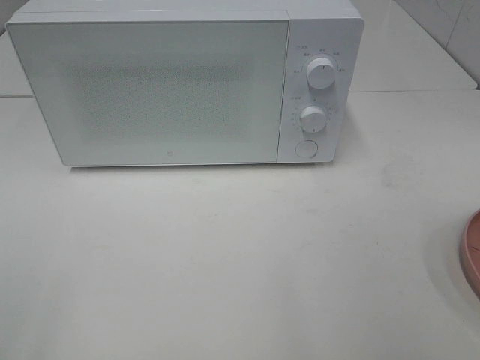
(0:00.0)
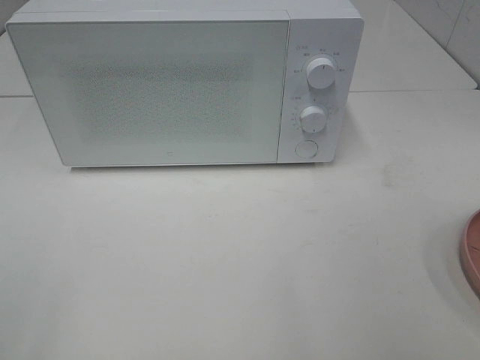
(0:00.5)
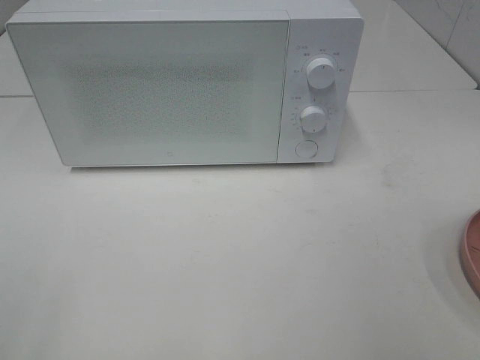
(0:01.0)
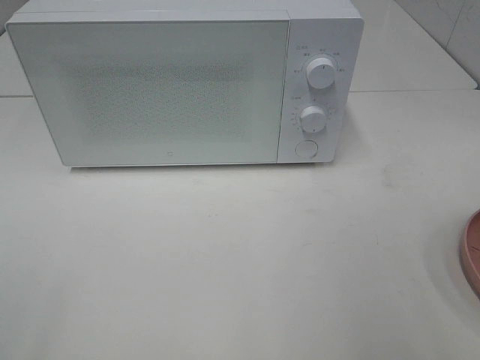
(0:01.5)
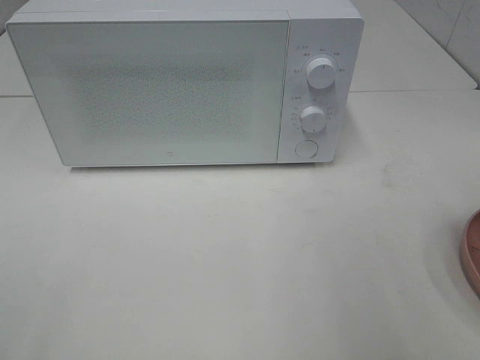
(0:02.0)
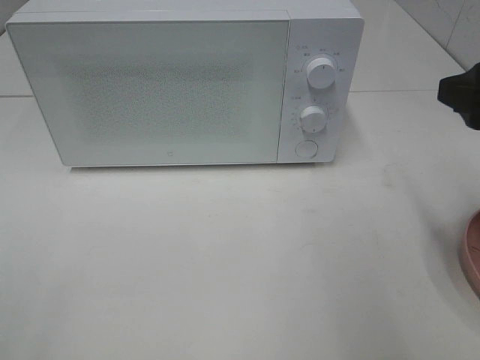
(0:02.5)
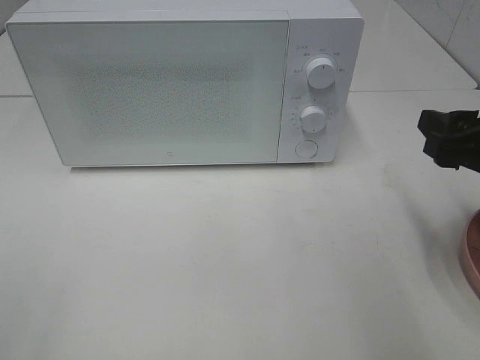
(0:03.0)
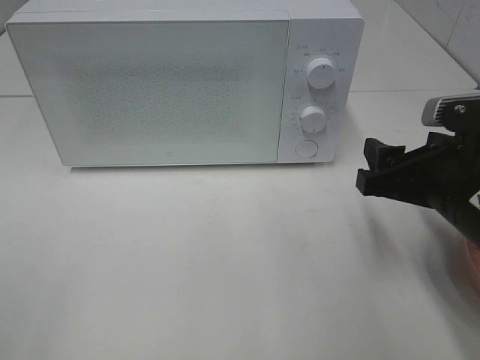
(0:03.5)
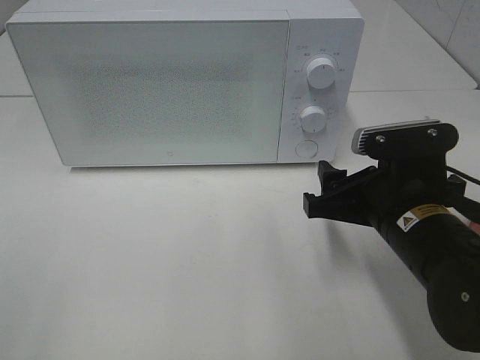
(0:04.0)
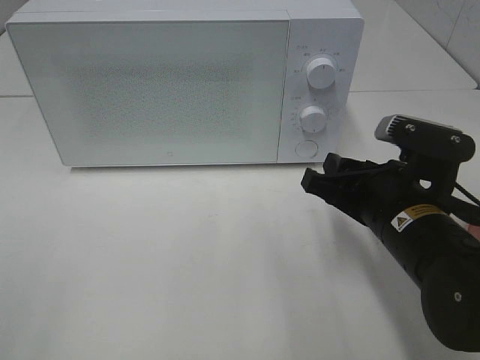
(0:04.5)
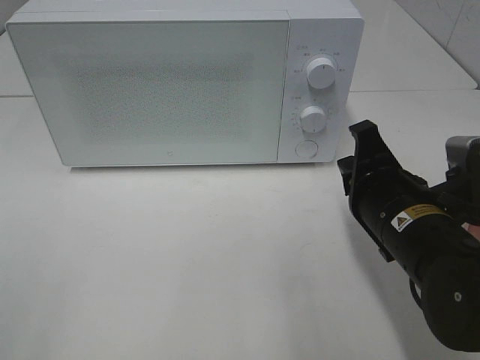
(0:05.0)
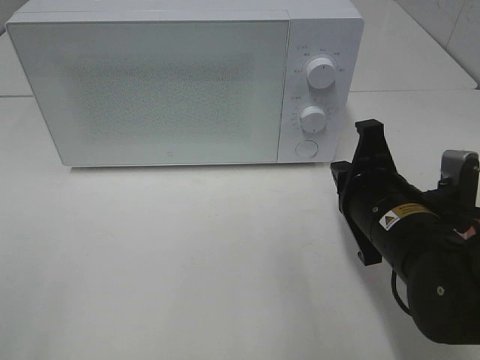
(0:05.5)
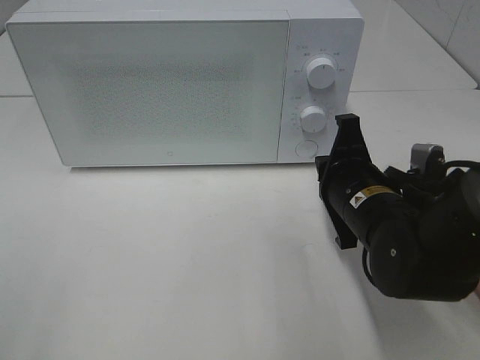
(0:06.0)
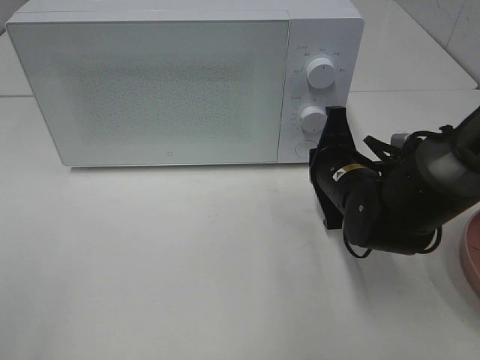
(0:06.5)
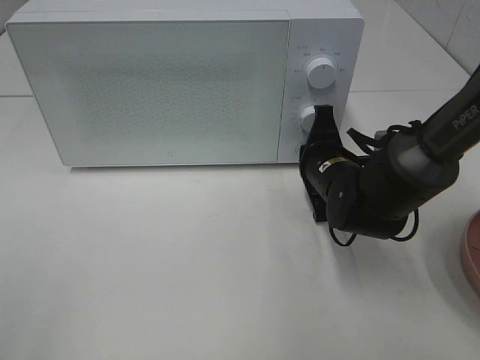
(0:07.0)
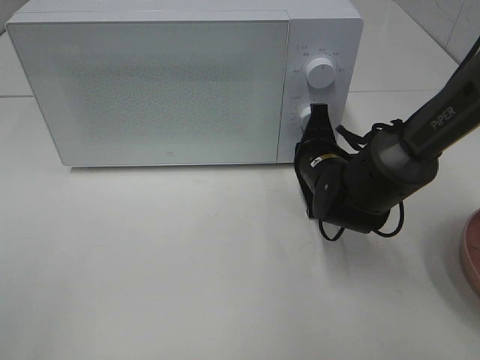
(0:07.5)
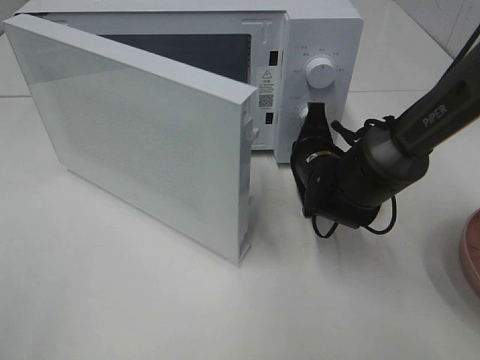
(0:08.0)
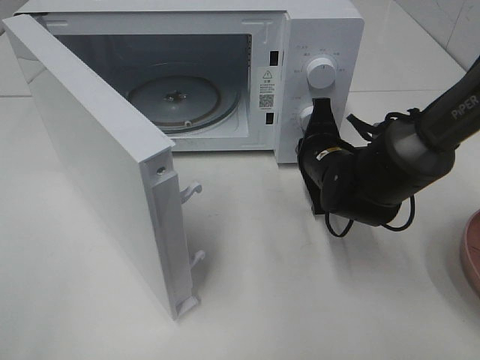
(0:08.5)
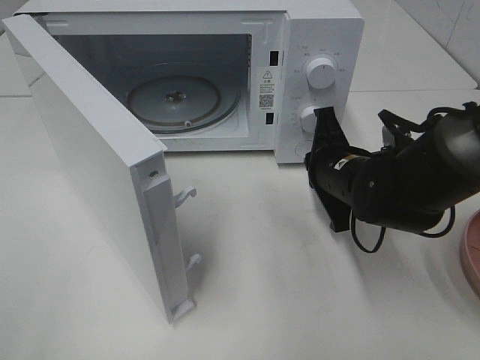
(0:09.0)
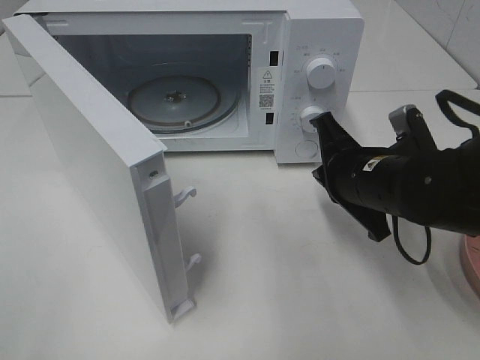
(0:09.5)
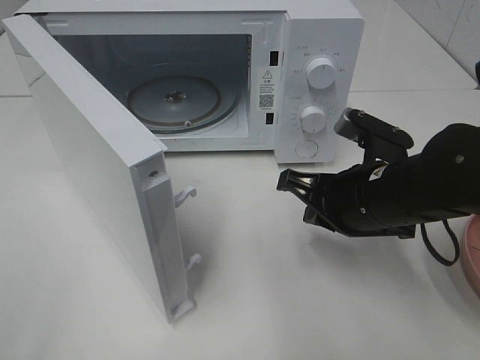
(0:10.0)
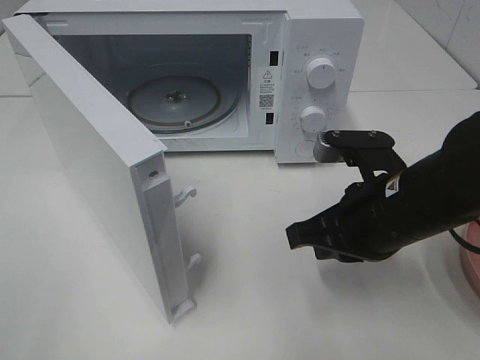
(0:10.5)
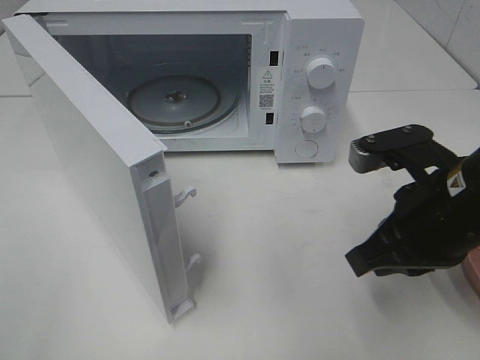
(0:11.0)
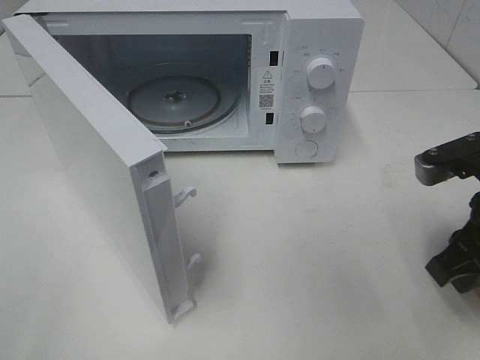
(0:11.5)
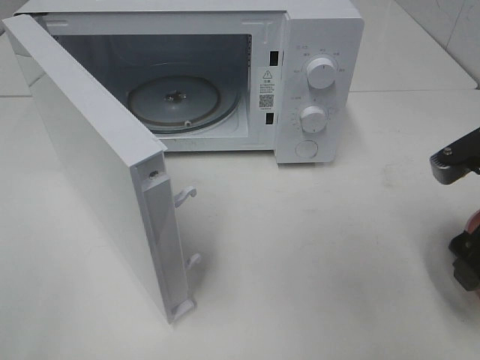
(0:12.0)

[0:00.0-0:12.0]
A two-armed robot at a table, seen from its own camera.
Task of the whole recording: Heat the burger.
Step, 0:00.0 to 0:09.5: Right hand: press the switch.
0:02.0 to 0:04.0: The right gripper moves downward, to the left and forward, approximately 20 cm.
0:04.0 to 0:06.0: The right gripper ends up some 5 cm from where it was, and closes.
0:06.0 to 0:08.0: The right gripper is displaced forward by approximately 10 cm.
0:08.0 to 0:10.0: The right gripper goes about 15 cm backward and upward.
0:10.0 to 0:12.0: The right gripper heads to the right, covering about 10 cm, and opens its fingers.

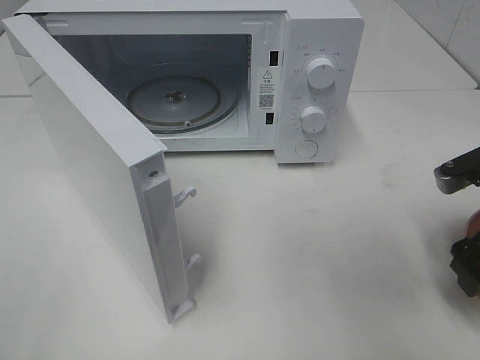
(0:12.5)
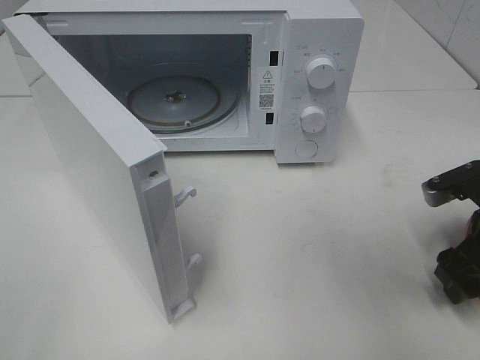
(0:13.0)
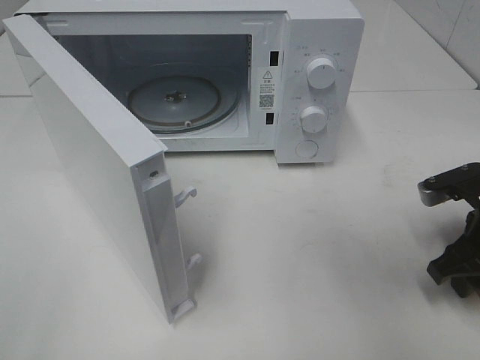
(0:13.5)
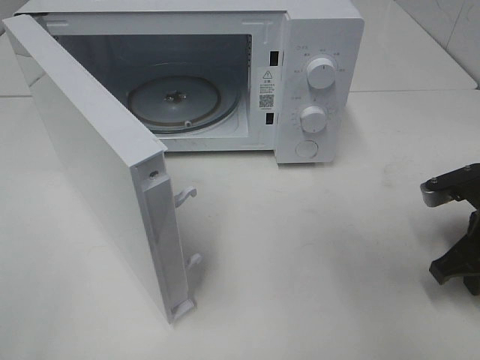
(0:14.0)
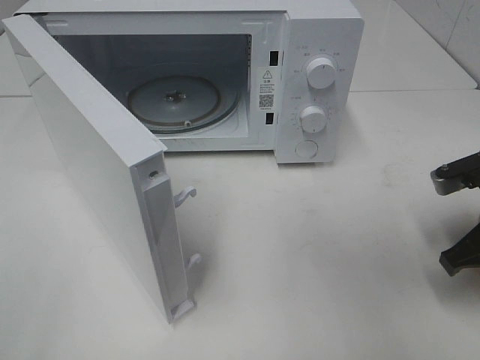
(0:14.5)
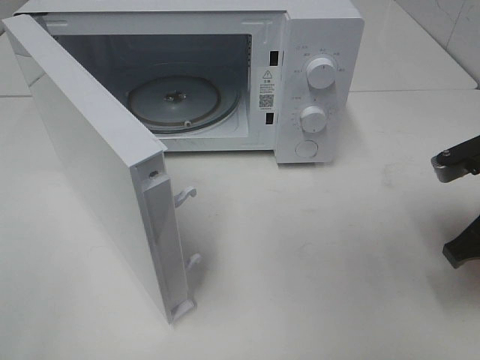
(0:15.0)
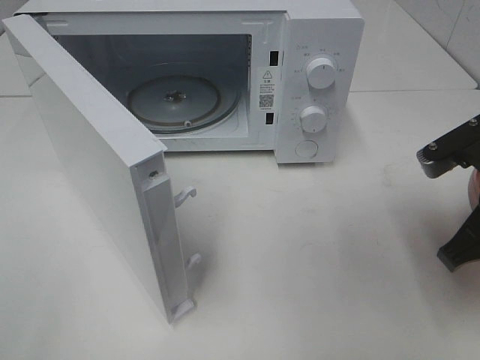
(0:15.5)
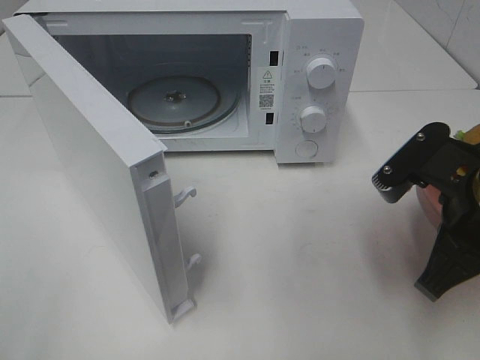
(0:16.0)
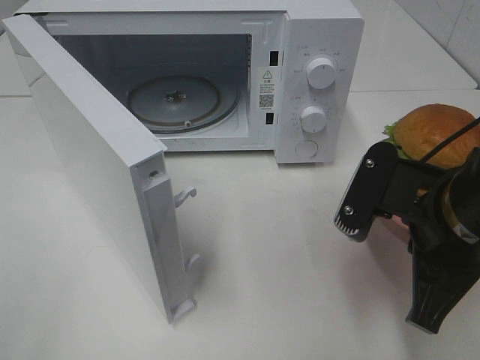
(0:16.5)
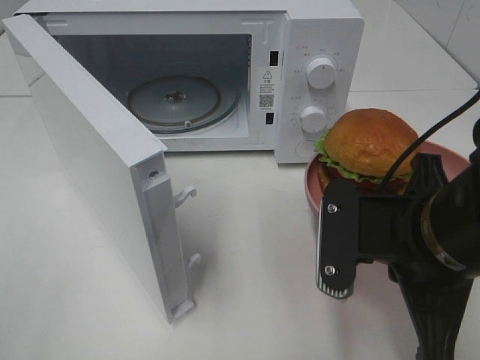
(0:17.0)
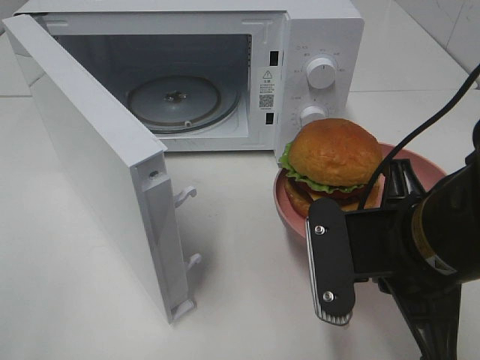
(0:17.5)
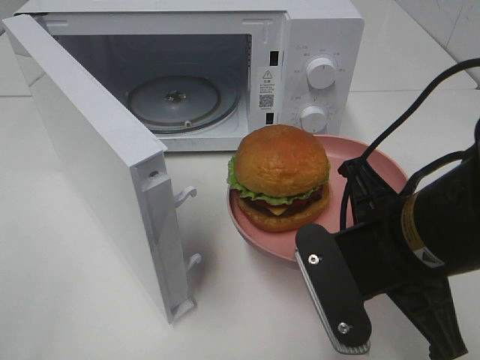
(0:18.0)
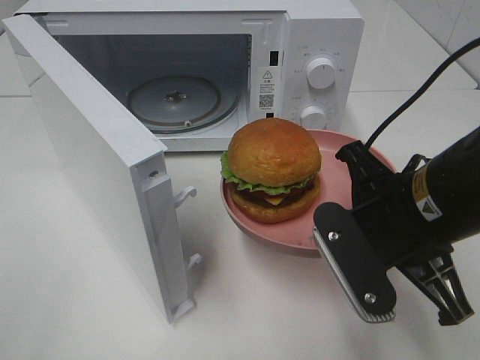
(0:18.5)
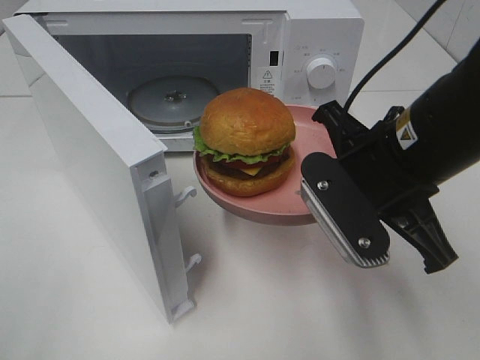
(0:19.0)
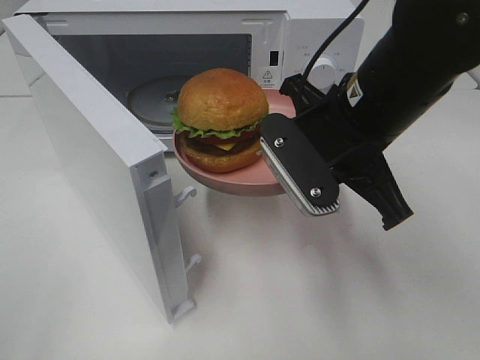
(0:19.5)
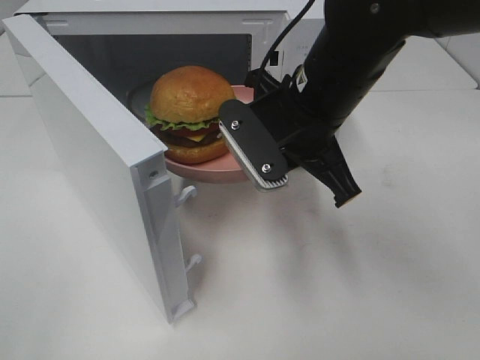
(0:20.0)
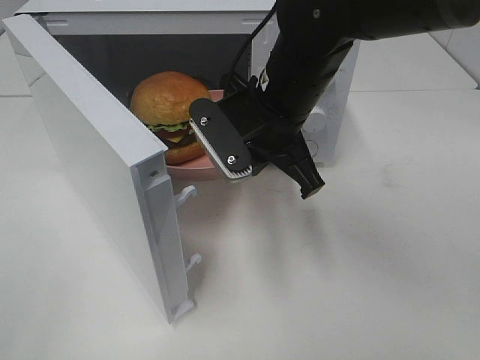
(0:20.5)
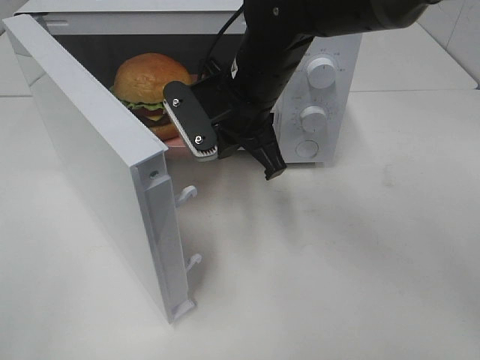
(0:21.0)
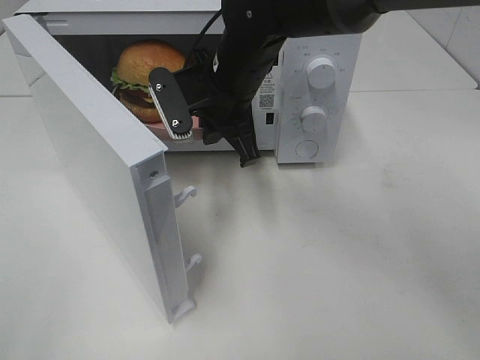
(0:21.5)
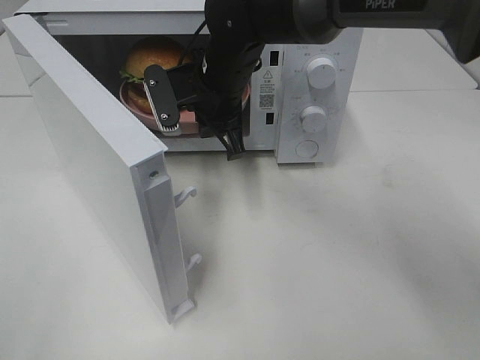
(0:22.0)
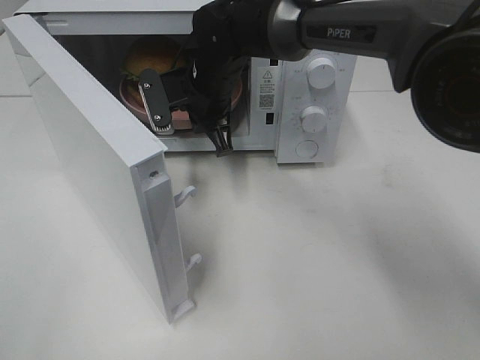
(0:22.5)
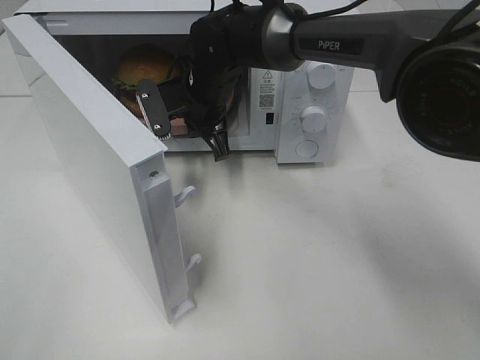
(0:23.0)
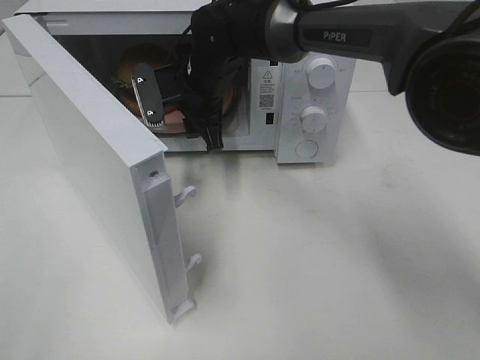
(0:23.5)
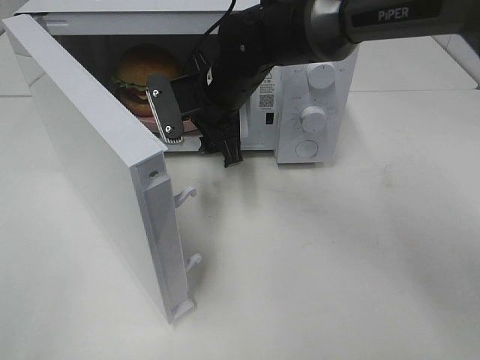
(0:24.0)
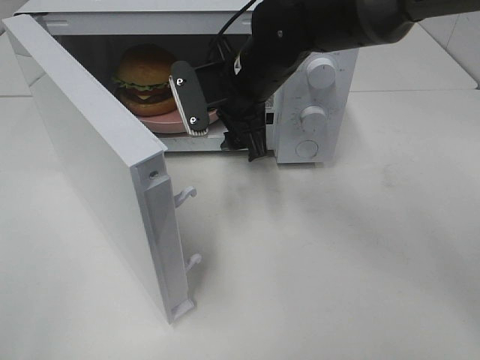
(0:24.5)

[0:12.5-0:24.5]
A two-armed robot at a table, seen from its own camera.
Task of the whole recording: Heat the burger.
Step, 0:12.5 to 0:14.5: Right hand: grab the plate with the hamburger.
Step, 0:15.0 to 0:23.0: Right hand: place the plate in the microwave.
0:12.5 to 0:14.5: The right gripper closes up.
0:14.5 to 0:16.5: The right gripper goes some 15 cm to the left, backward and upward.
0:18.5 to 0:20.5: The right gripper shifts approximately 15 cm forward and to the left.
0:20.5 to 0:22.5: The right gripper shifts roughly 15 cm forward and to the left.
0:22.5 to 0:24.5: The right gripper travels to the right and backward by approximately 5 cm, and opens.

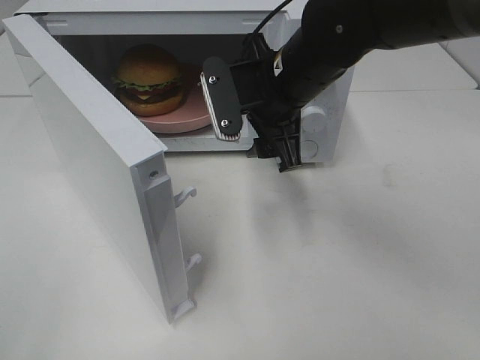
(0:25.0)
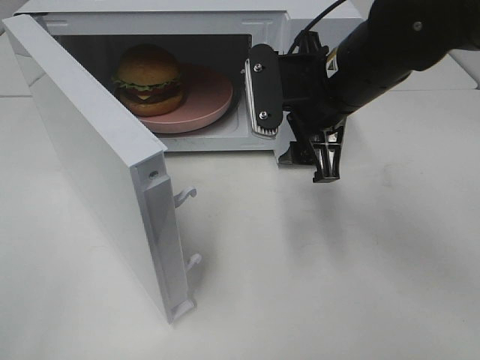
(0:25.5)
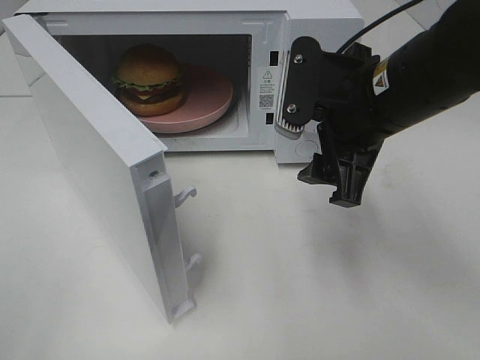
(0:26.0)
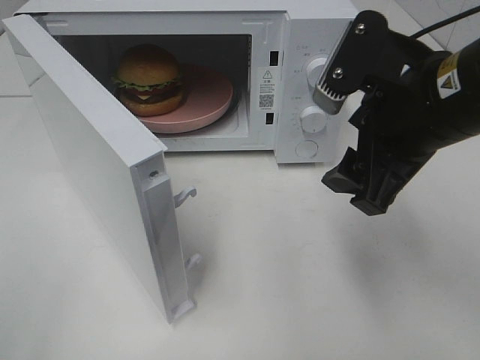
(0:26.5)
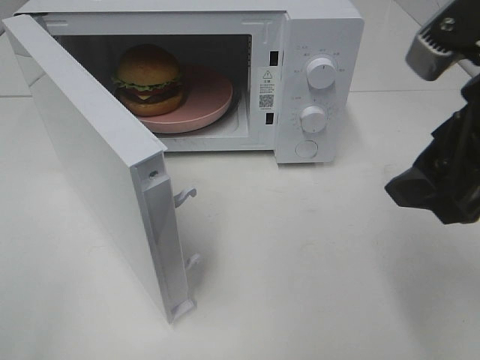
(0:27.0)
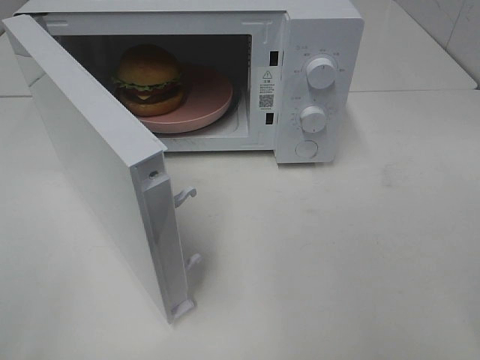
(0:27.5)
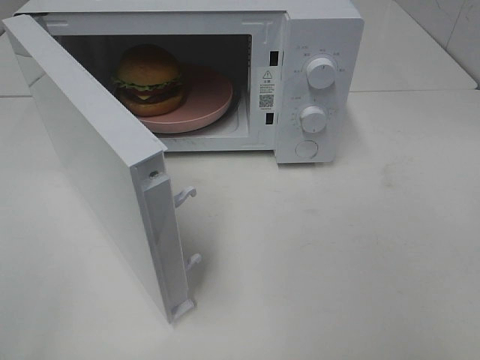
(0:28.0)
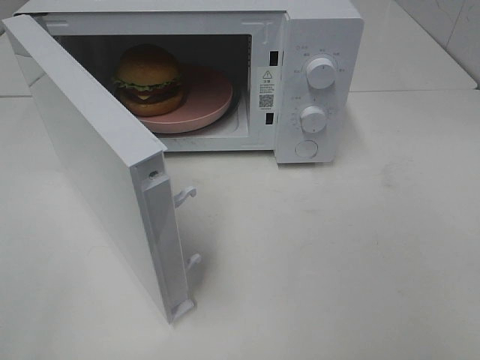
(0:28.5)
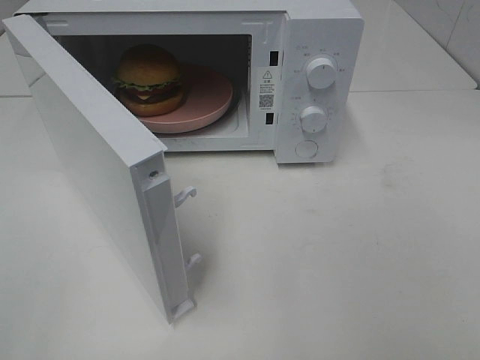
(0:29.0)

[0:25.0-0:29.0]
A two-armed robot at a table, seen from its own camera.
Task of the whole recording: Heat the burger.
0:25.0 to 0:27.0: The right gripper heads backward, to the right and upward, covering roughly 25 cm.
0:27.0 to 0:29.0: The right gripper moves backward and to the right, some 20 cm.
